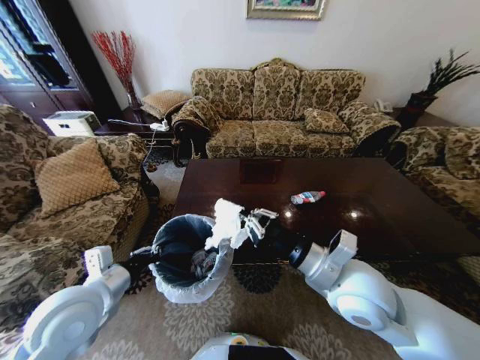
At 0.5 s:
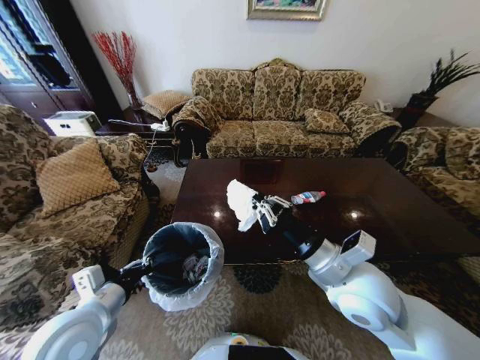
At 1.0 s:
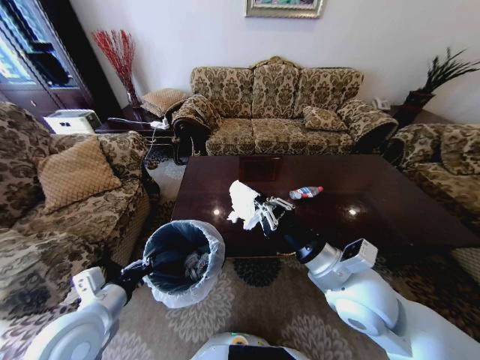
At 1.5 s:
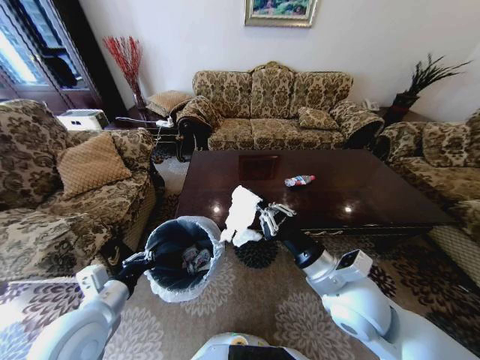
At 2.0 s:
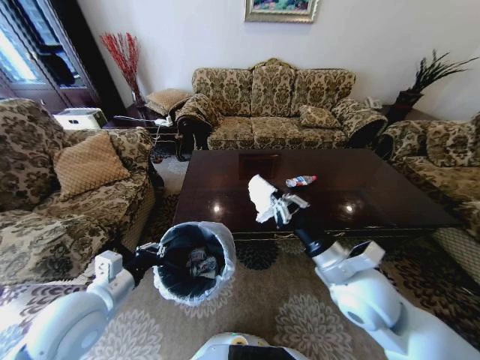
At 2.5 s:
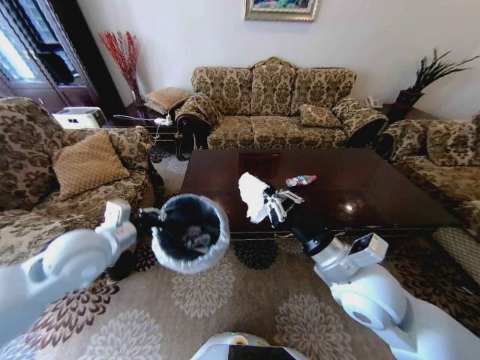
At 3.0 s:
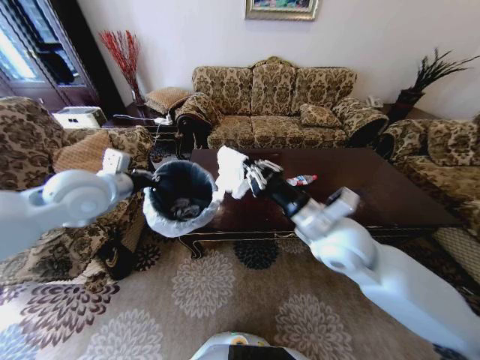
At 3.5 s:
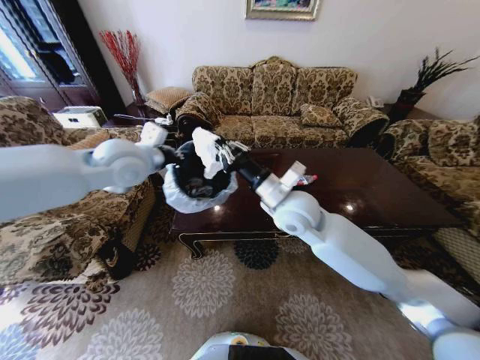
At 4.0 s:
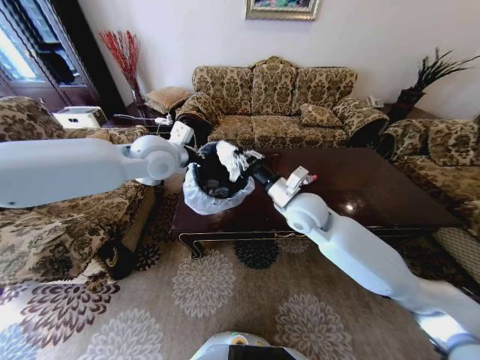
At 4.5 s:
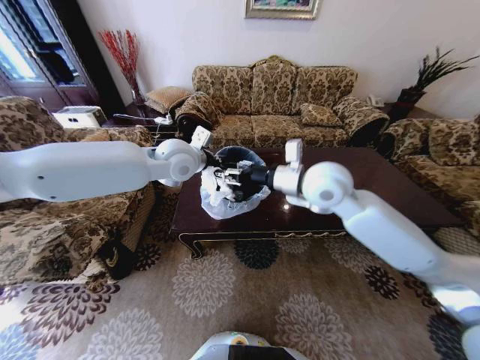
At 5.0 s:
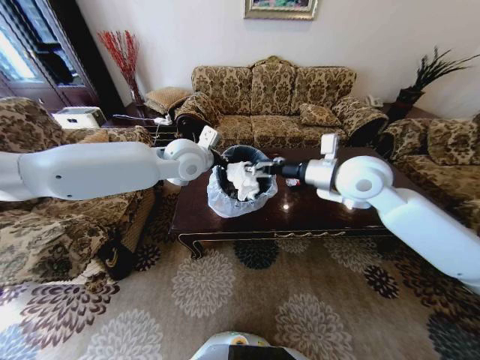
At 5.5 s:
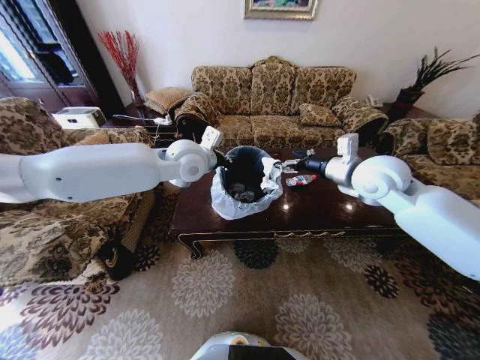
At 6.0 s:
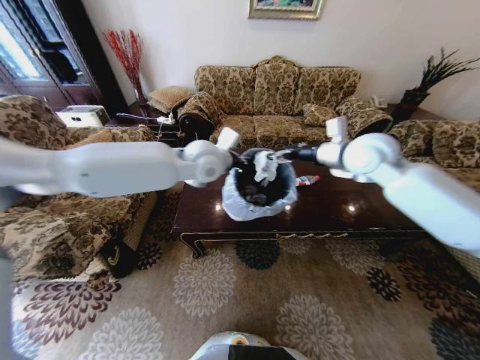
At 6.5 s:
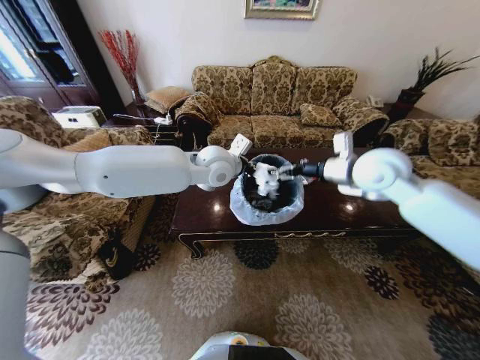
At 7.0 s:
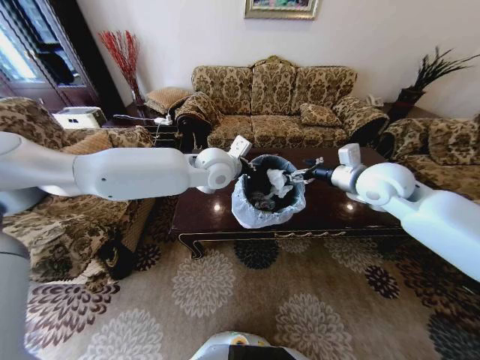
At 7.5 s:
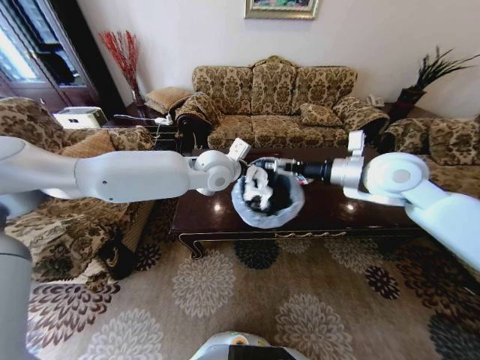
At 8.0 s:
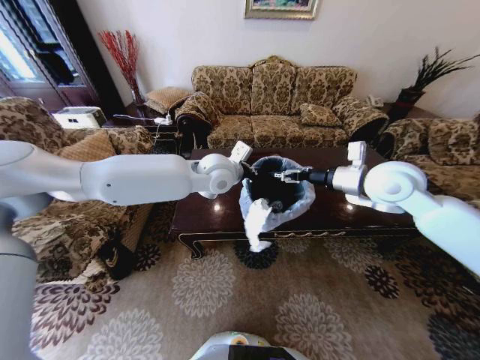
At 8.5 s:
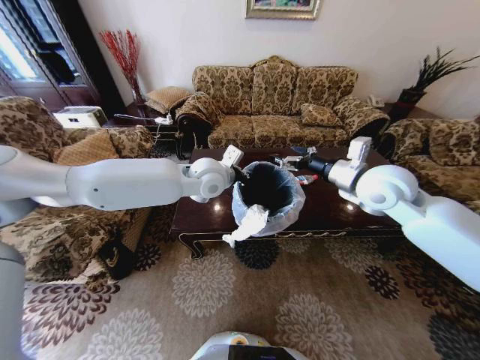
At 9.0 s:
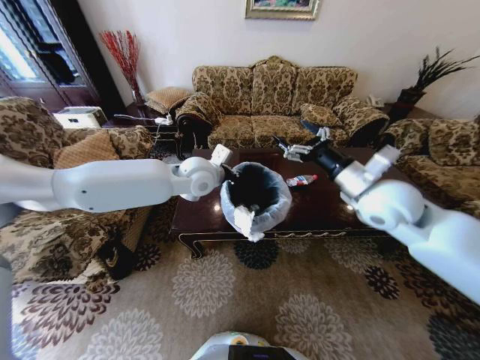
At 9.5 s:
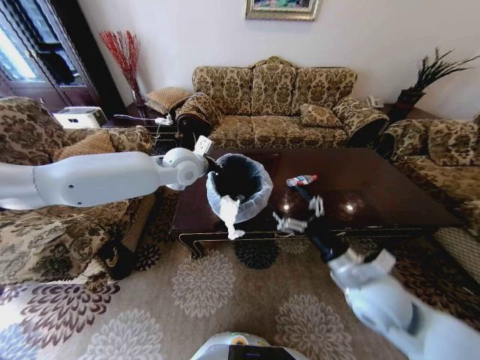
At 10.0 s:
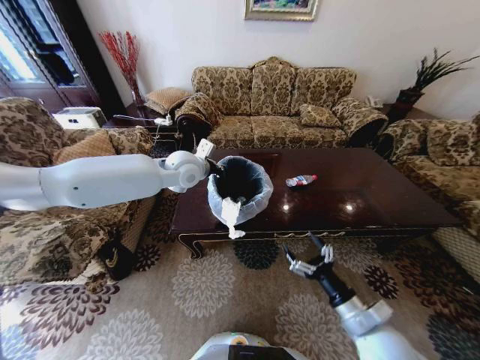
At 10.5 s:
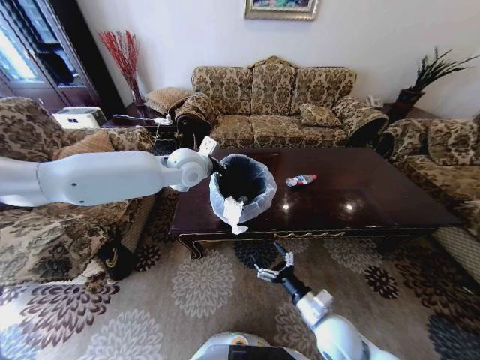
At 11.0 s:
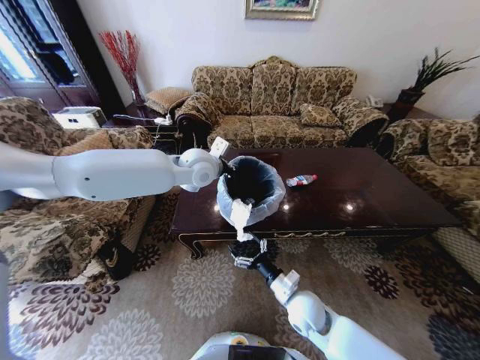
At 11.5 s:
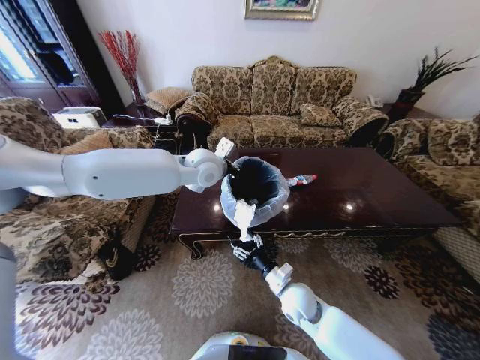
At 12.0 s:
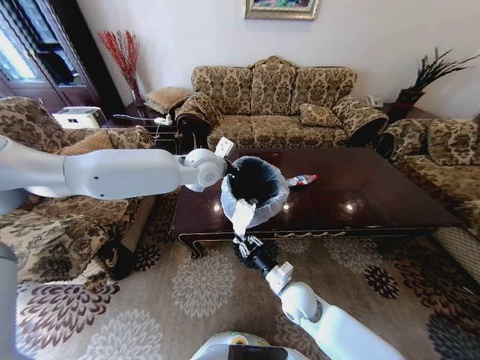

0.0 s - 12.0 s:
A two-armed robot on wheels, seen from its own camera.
Task of the whole recording: Move to the front of the table and place the trash on the table into the trash bin.
2.0 s - 4.0 s: The right gripper goes about 20 cm forward and to the left. Meanwhile the left gripper moves forward and upward, some 30 cm.
4.0 s - 6.0 s: The left gripper shifts about 10 cm to the right. Meanwhile the right gripper shifts some 20 cm upward, to the right and forward, and opens its fingers.
6.0 s - 8.0 s: The right gripper travels backward by about 5 cm.
8.0 s - 10.0 s: The right gripper is displaced downward and backward by approximately 35 cm; the left gripper goes about 10 cm to the left.
10.0 s - 12.0 s: The left gripper heads to the right, covering approximately 5 cm, while the right gripper is displaced to the left, forward and downward by roughly 20 cm, and closes up.

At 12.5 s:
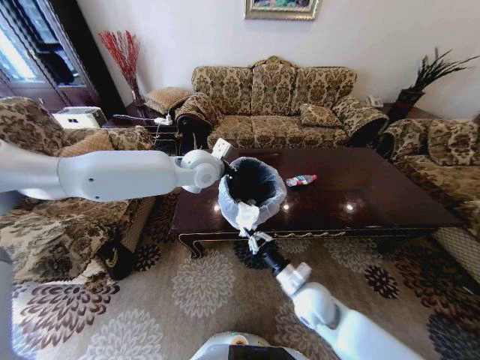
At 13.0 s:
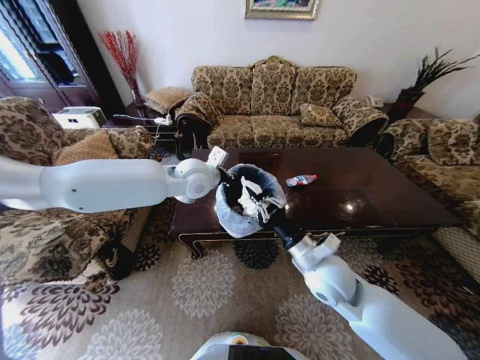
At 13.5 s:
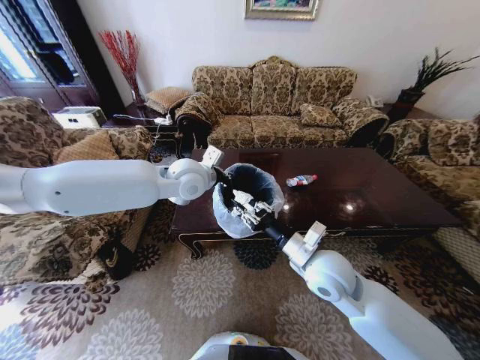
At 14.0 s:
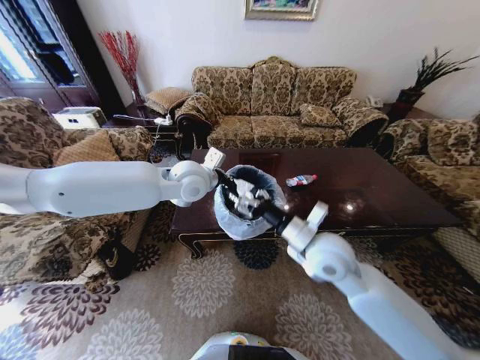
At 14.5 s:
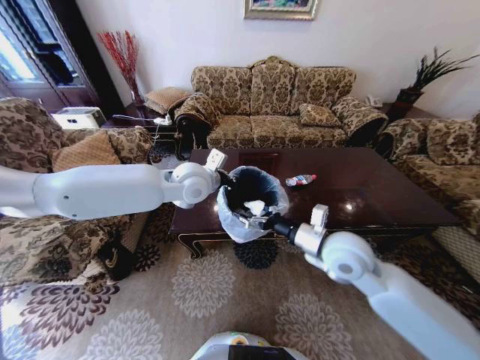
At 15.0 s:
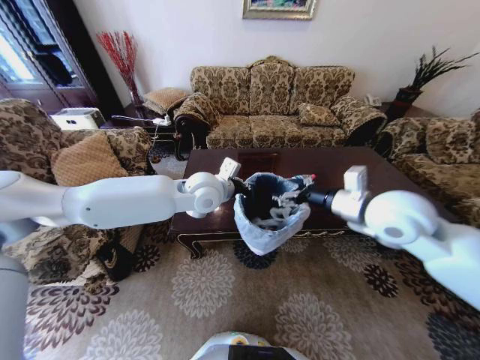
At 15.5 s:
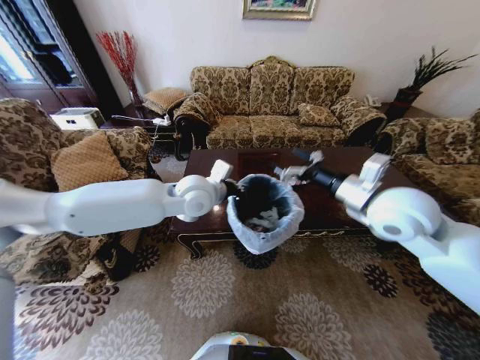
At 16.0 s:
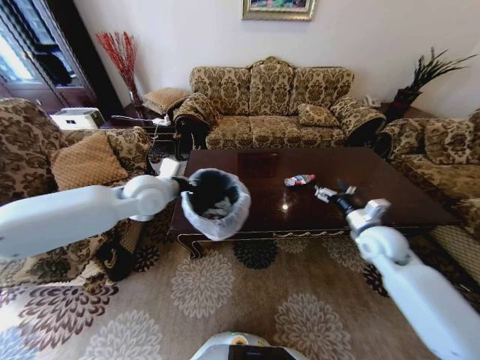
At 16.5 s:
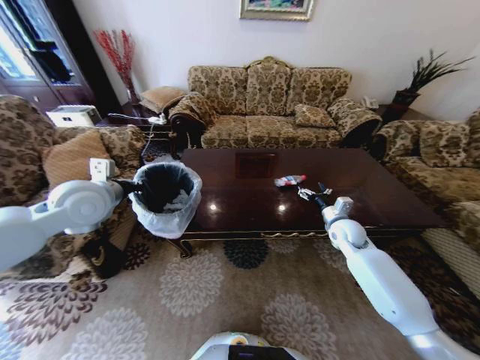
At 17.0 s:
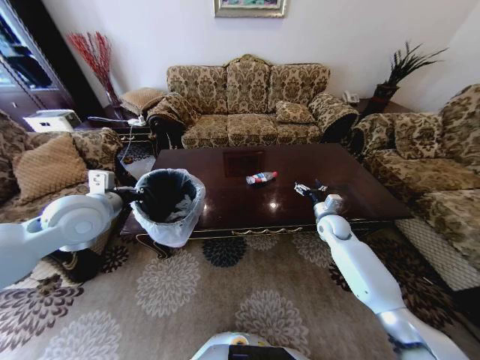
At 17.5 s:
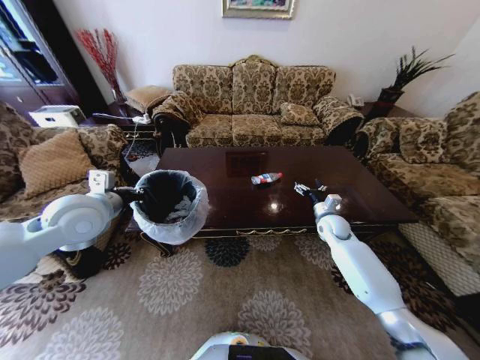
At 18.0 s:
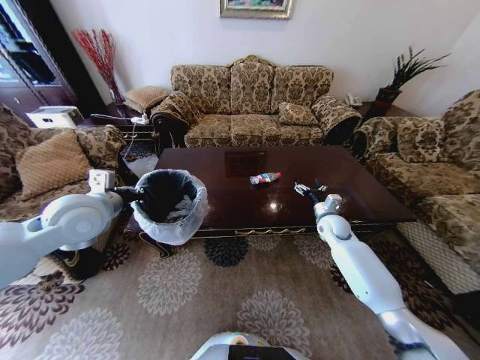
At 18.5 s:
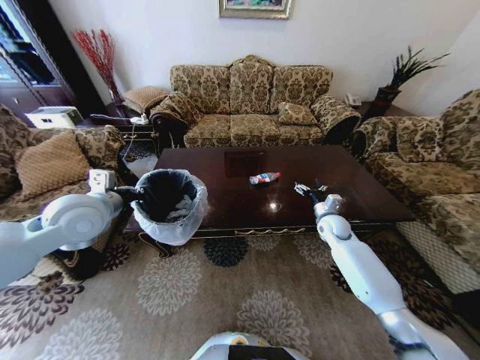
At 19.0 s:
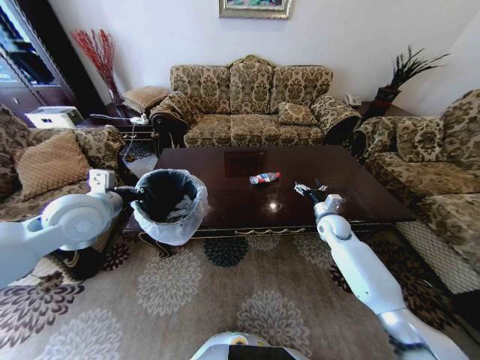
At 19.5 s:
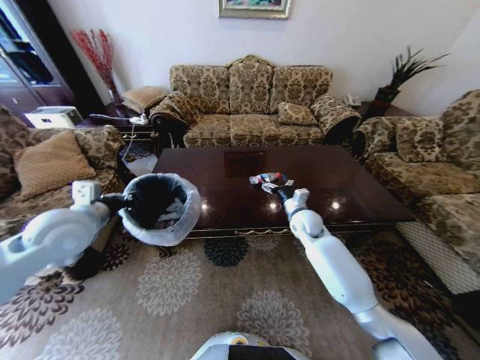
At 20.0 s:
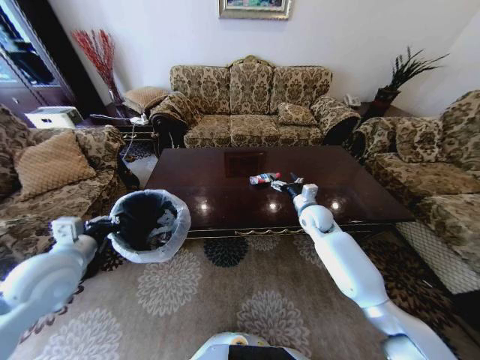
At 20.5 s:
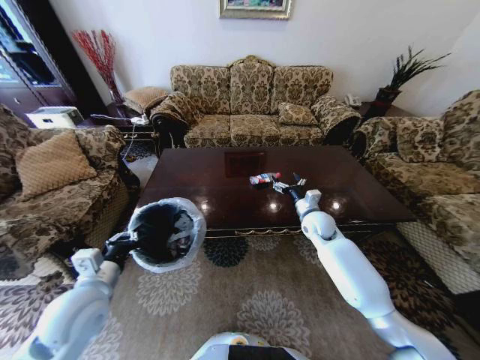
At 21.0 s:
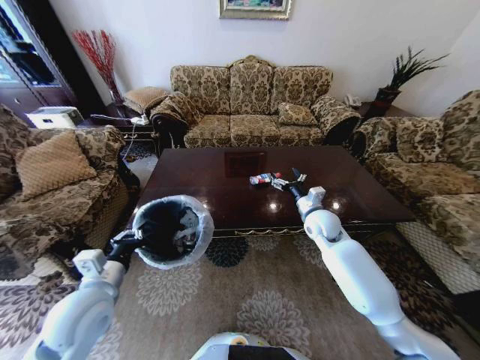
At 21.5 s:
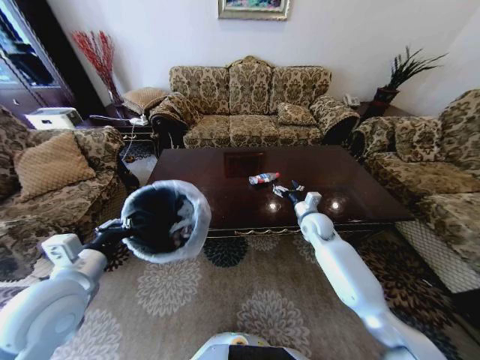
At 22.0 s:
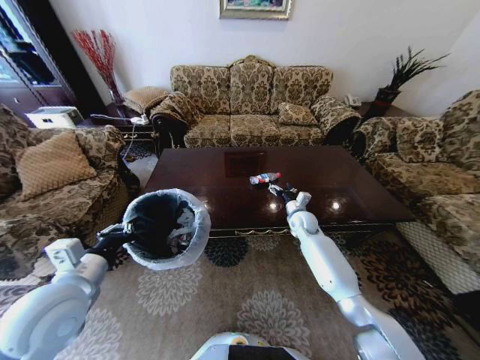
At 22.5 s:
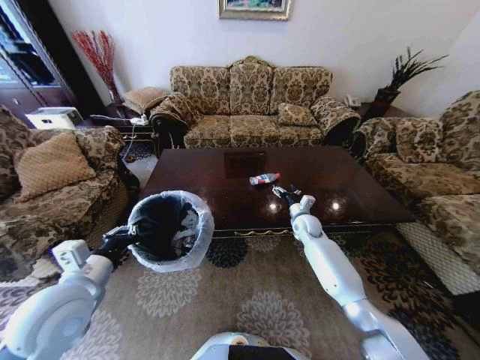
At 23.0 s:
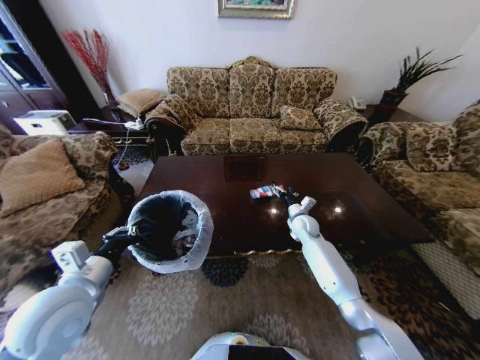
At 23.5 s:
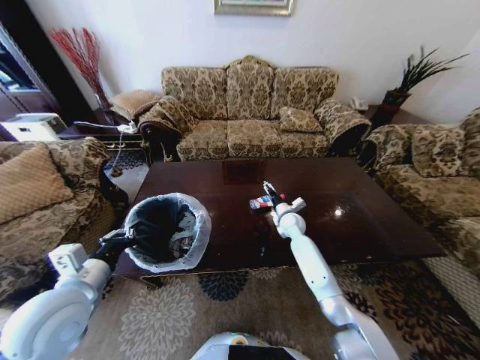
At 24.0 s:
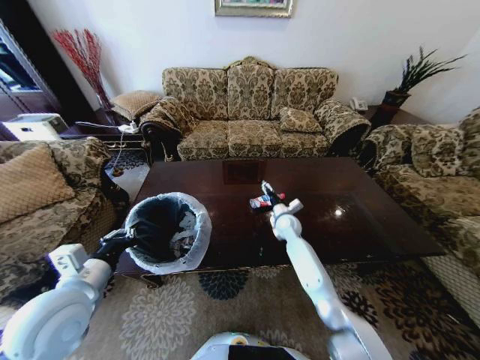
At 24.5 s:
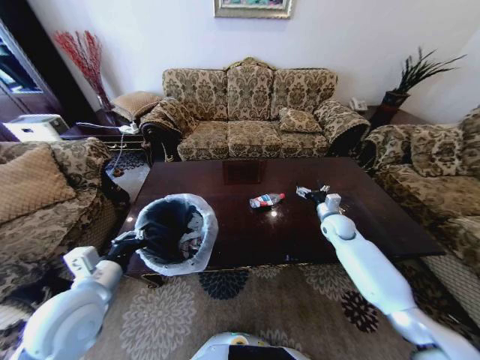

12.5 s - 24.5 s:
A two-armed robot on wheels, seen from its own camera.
Task of the whole recording: Move to the front of the table and place the trash on the table into the trash bin.
12.5 s - 14.5 s: The right gripper goes some 15 cm upward, and opens.
14.5 s - 16.5 s: The left gripper is displaced to the left by some 20 cm; the right gripper travels forward, to the right and downward by some 20 cm.
16.5 s - 18.5 s: The right gripper ends up approximately 5 cm from where it was.
18.5 s - 20.5 s: The right gripper travels to the left by approximately 10 cm. The left gripper shifts roughly 20 cm downward and backward.
20.5 s - 22.5 s: The right gripper is displaced downward by roughly 5 cm, while the left gripper moves upward, about 5 cm.
22.5 s - 24.5 s: The right gripper shifts approximately 10 cm to the right.

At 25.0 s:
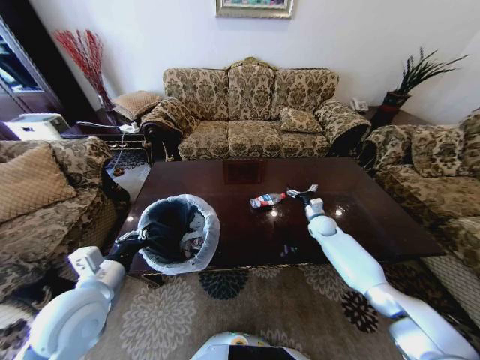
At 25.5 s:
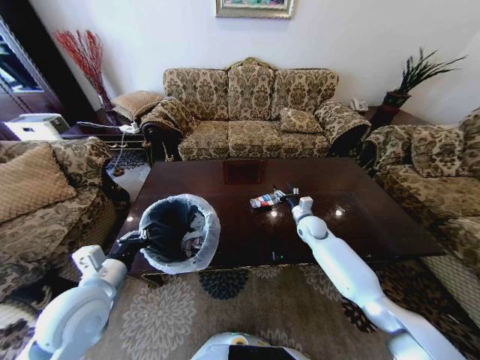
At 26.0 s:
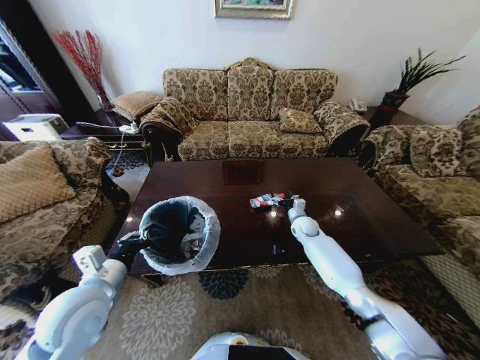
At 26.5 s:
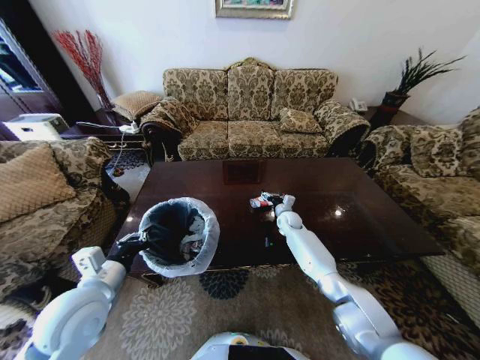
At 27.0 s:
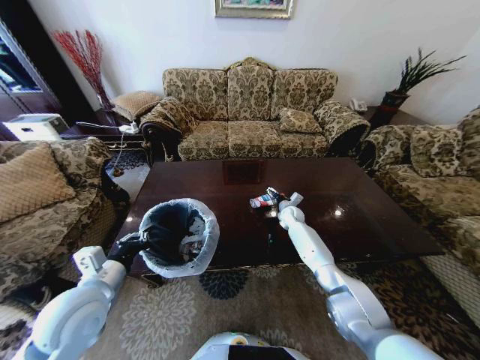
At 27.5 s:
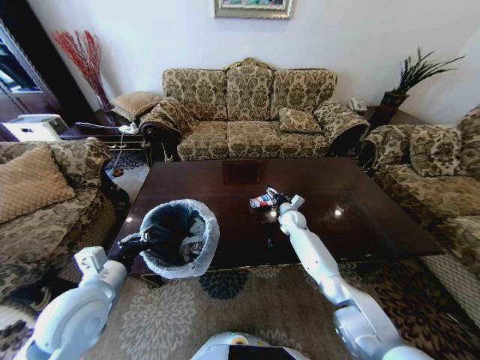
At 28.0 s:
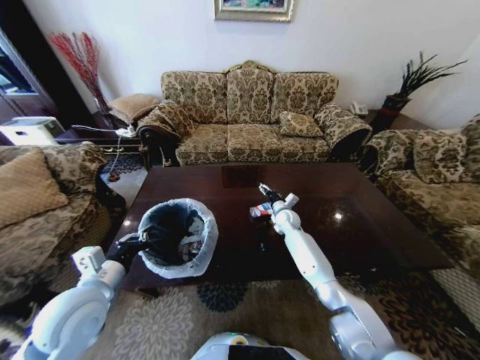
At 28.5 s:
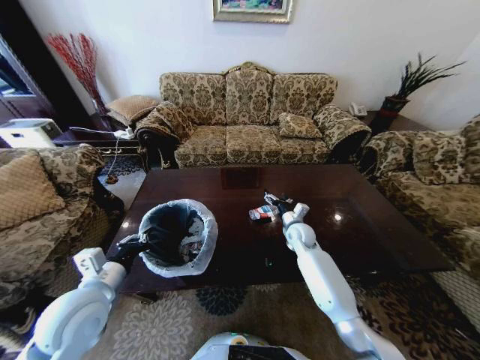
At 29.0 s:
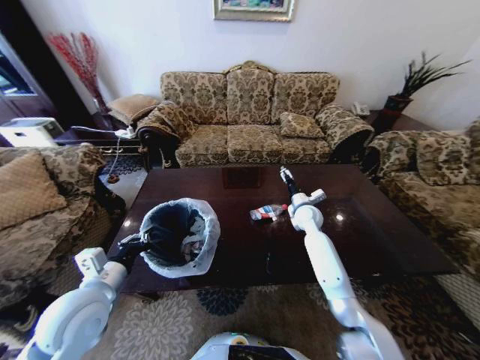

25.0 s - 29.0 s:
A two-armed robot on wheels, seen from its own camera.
Task of the whole recording: Move to the front of the table and place the trash on the table into the trash bin.
25.0 s - 27.0 s: The right gripper travels to the left and forward by roughly 10 cm.
27.0 s - 29.0 s: The right gripper moves upward and backward, some 10 cm.
